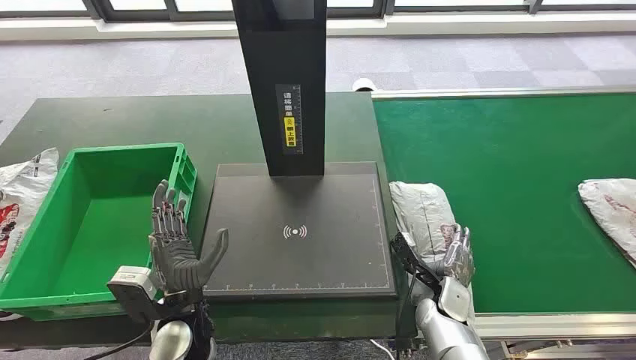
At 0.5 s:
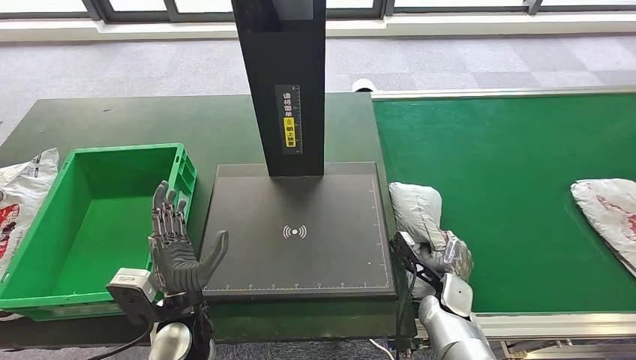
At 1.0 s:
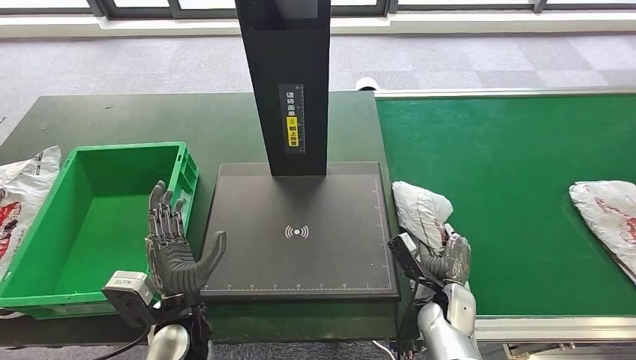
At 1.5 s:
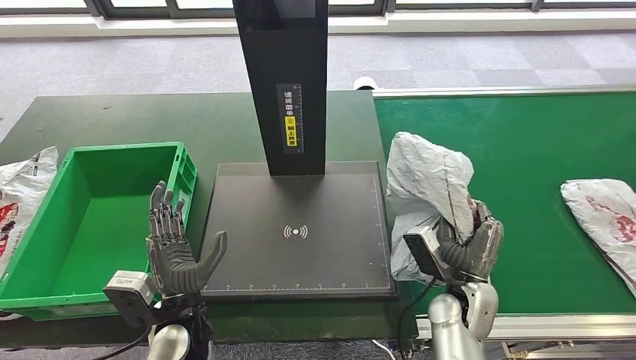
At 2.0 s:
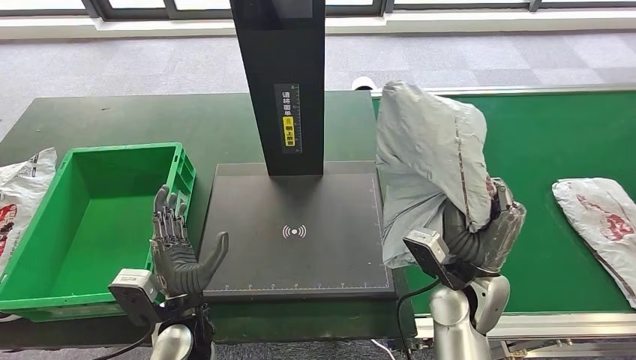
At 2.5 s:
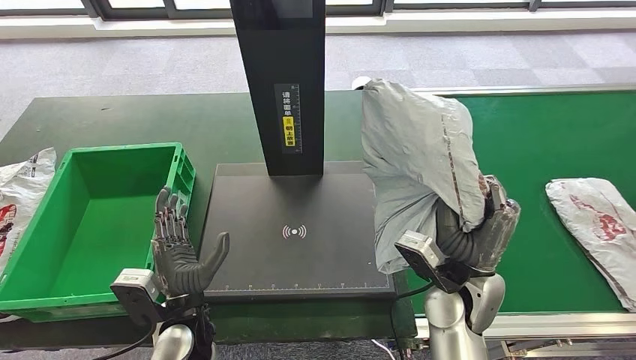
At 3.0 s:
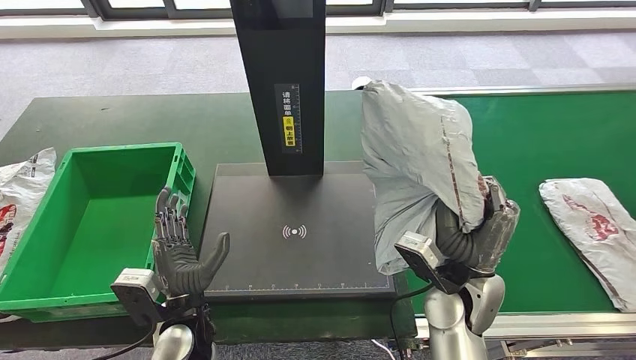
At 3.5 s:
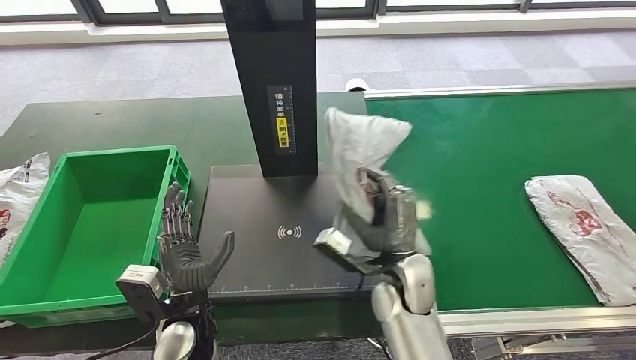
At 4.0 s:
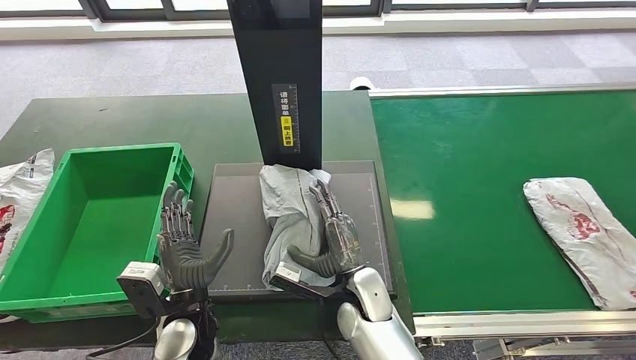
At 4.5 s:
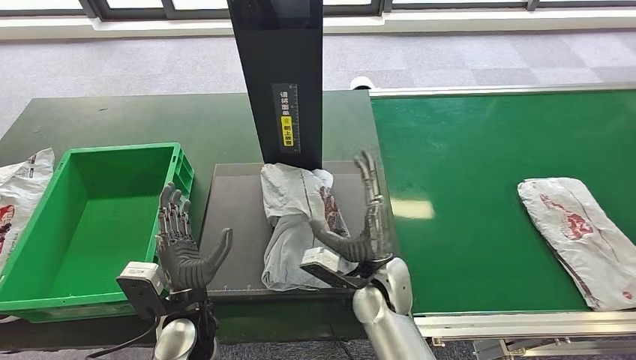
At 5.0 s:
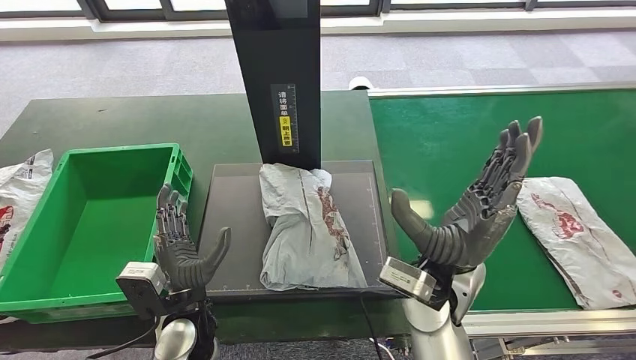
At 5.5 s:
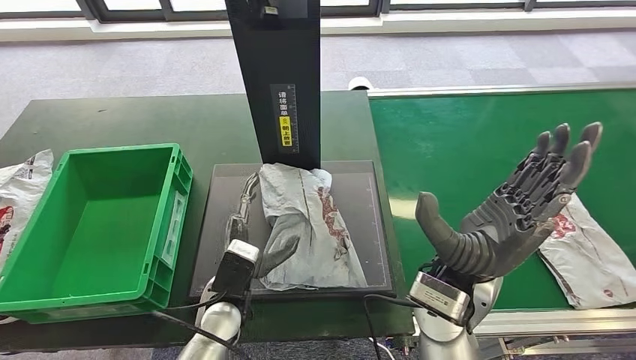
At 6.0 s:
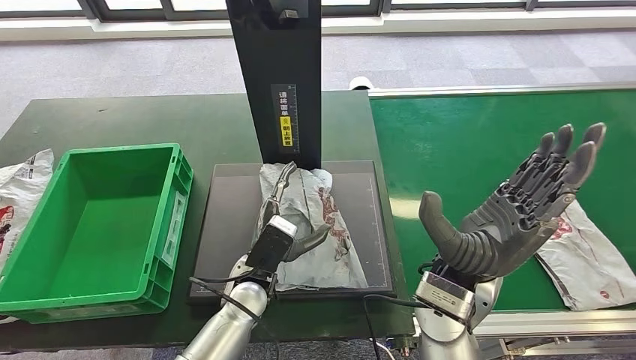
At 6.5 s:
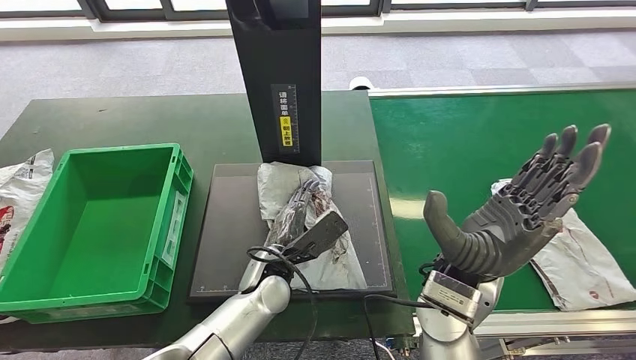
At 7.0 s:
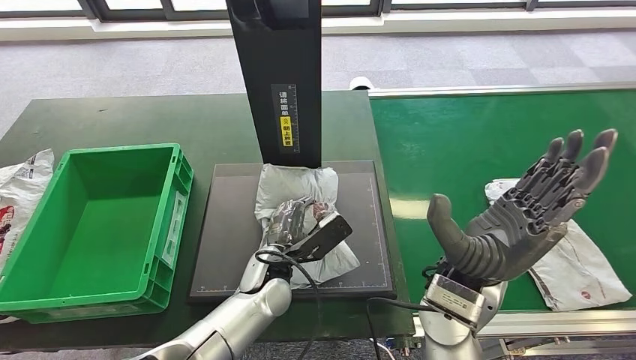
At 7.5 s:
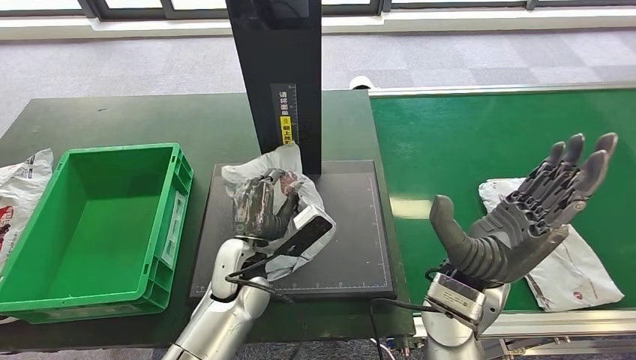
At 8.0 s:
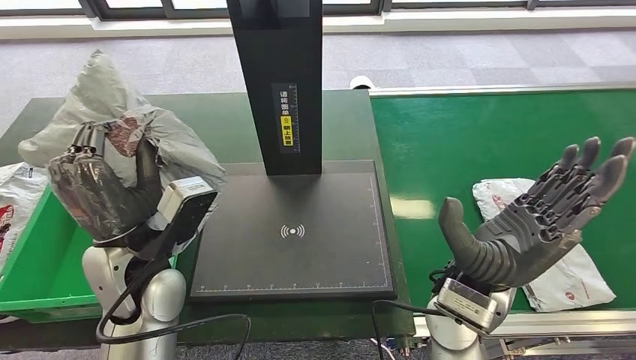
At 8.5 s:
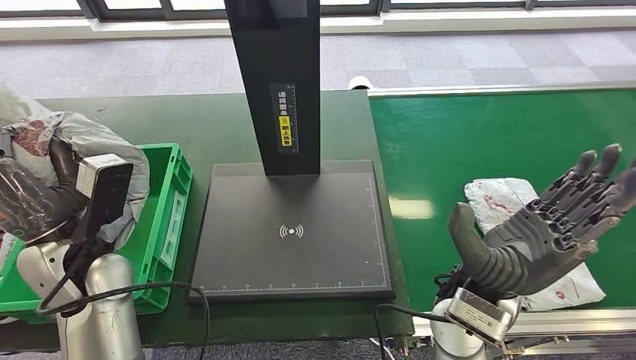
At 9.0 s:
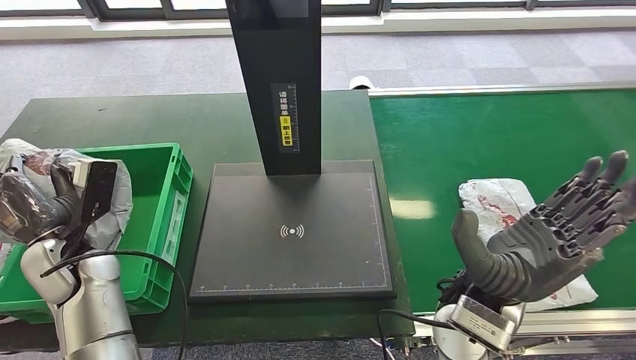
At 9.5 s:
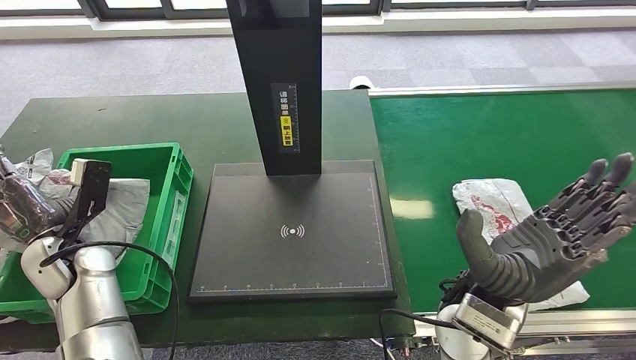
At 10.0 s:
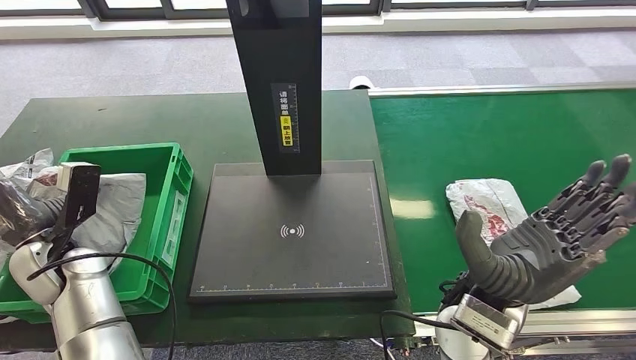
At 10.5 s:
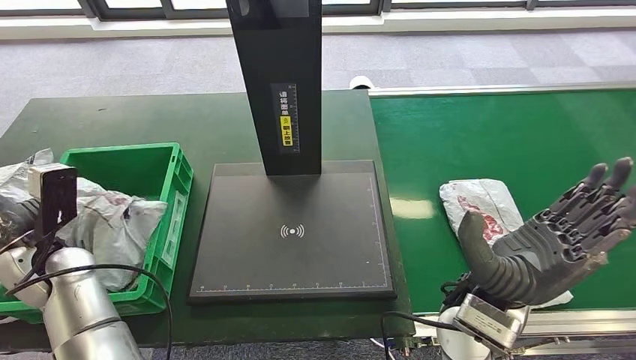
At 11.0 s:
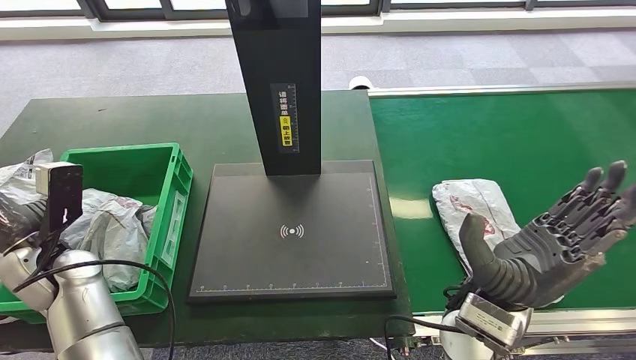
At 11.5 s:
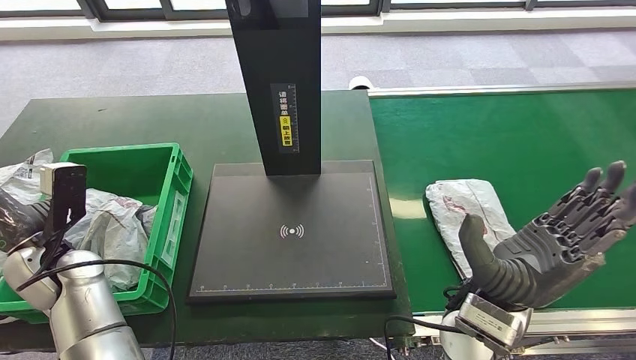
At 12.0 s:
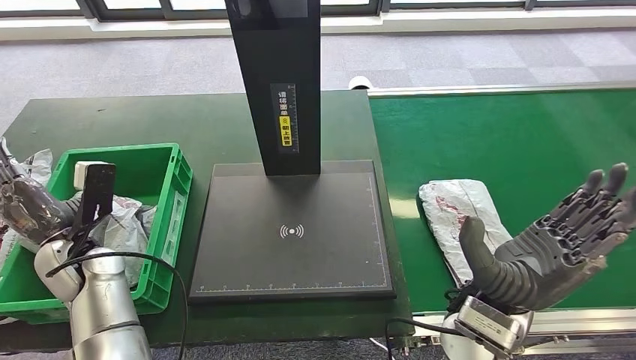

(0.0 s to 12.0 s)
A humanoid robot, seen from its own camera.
Step, 0.0 s - 2.0 s: Take the parcel off the conveyor belt.
Step, 2.5 s - 5.0 s: Place the parcel onto the inbound machine.
Step, 6.0 s - 8.5 s: Pick up the parcel from the inbound machine.
Step, 9.0 s - 11.0 s: Put the parcel inside the courier box.
4.0 s - 6.0 s: The right hand travels upward and to the right by some 20 cm; the left hand travels to the right and forward by approximately 10 cm.
10.0 s - 12.0 s: There are only small adjustments of the hands.

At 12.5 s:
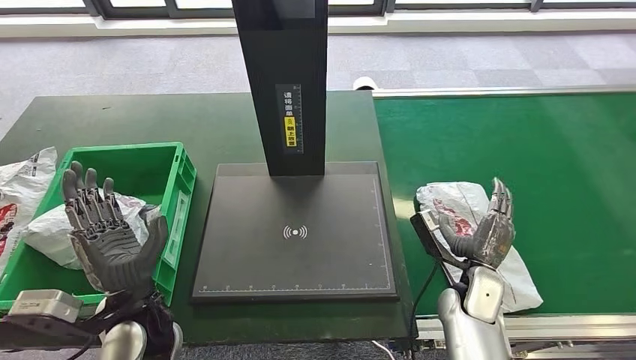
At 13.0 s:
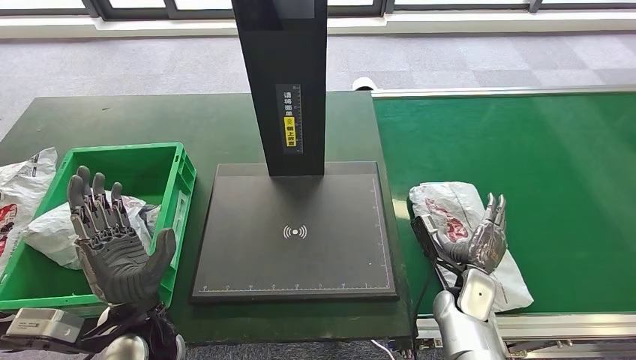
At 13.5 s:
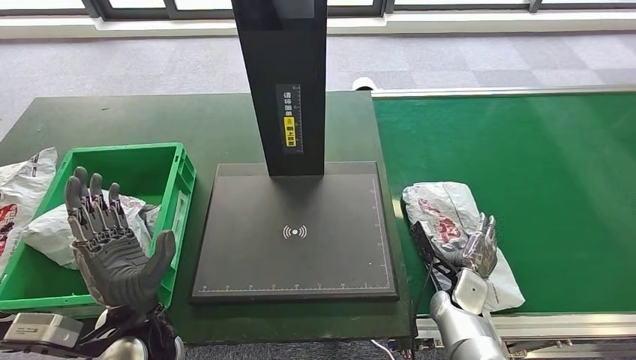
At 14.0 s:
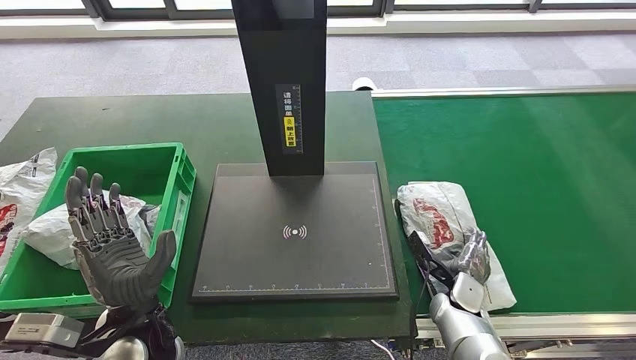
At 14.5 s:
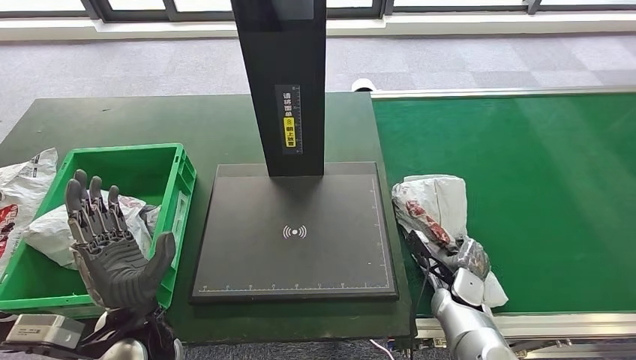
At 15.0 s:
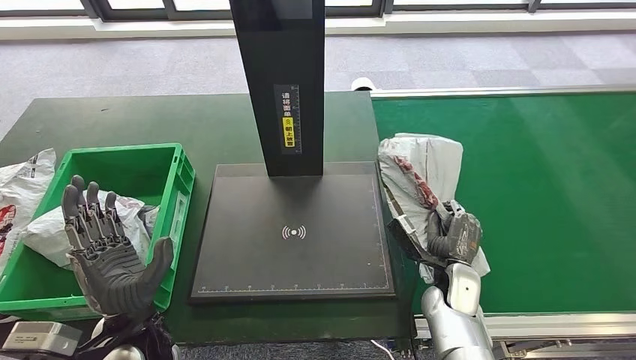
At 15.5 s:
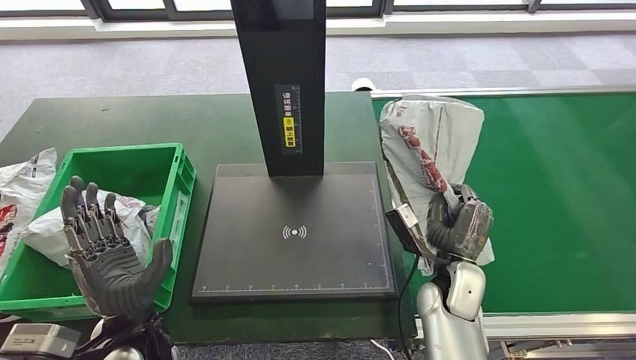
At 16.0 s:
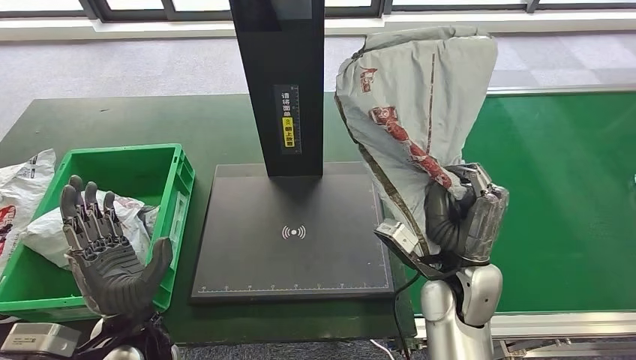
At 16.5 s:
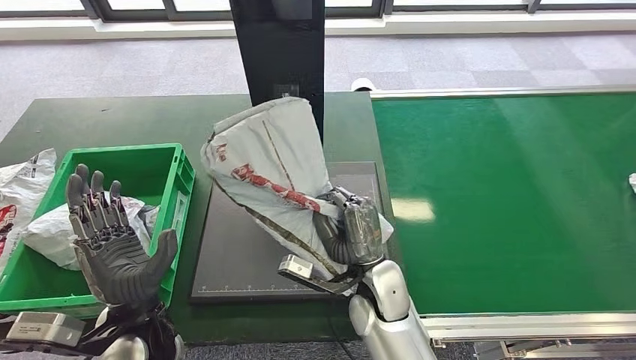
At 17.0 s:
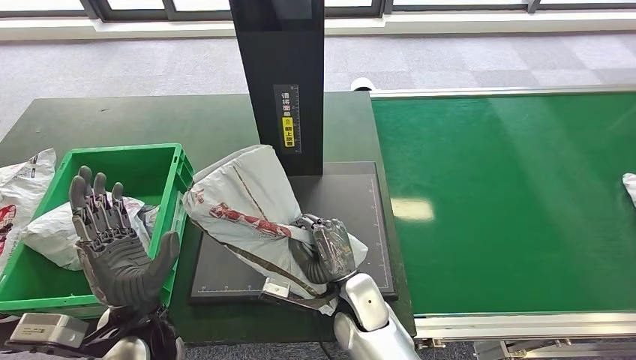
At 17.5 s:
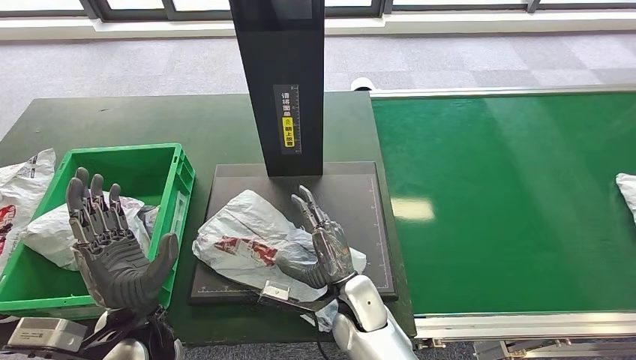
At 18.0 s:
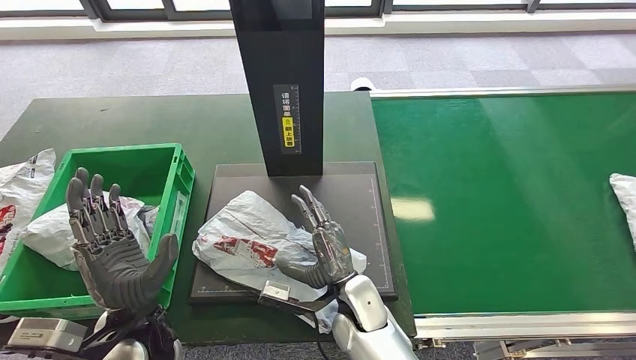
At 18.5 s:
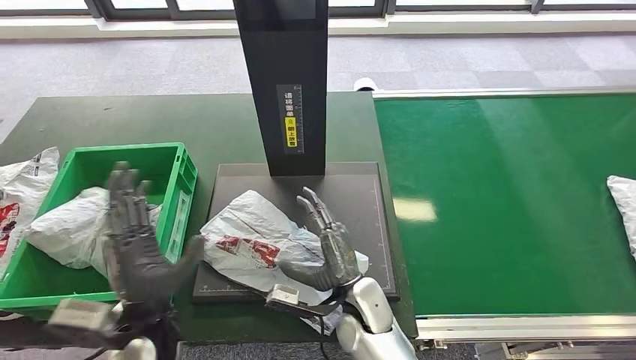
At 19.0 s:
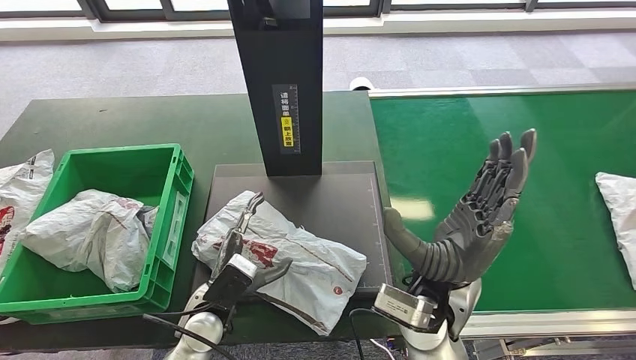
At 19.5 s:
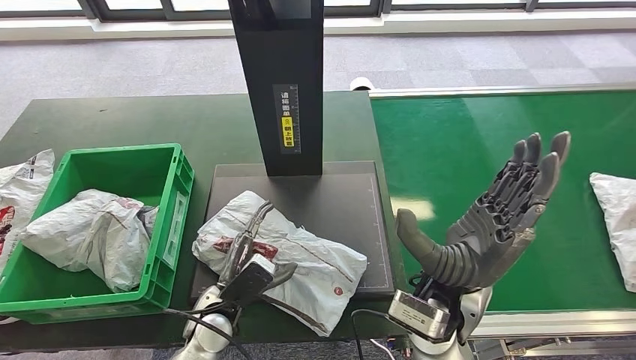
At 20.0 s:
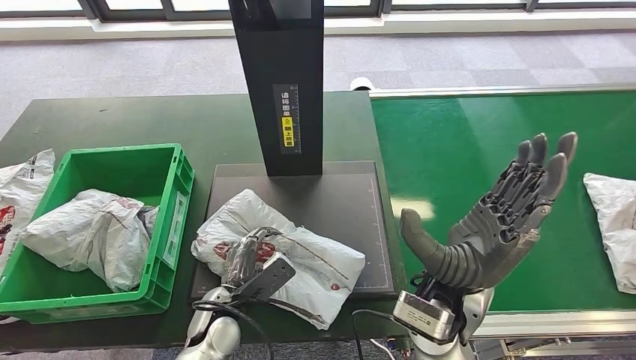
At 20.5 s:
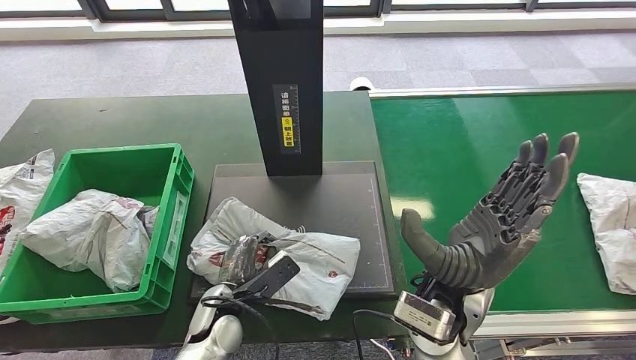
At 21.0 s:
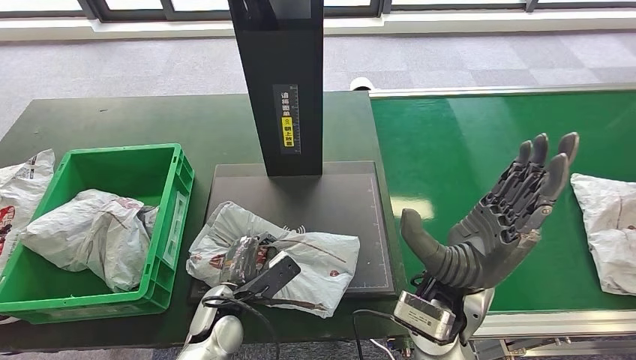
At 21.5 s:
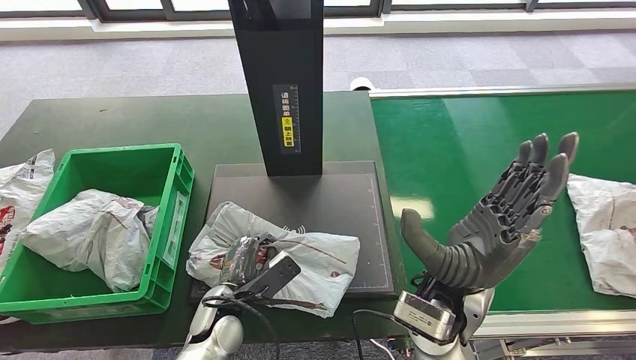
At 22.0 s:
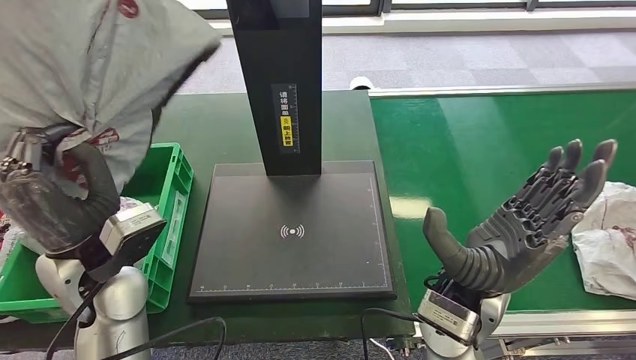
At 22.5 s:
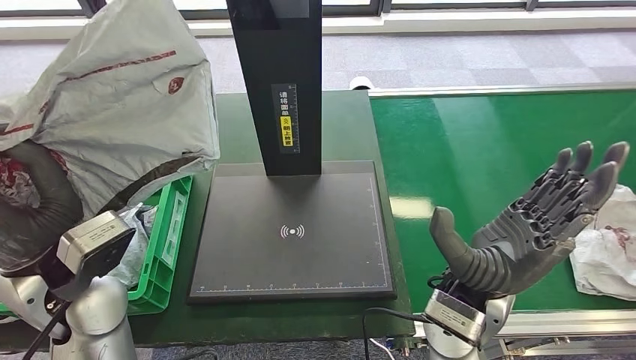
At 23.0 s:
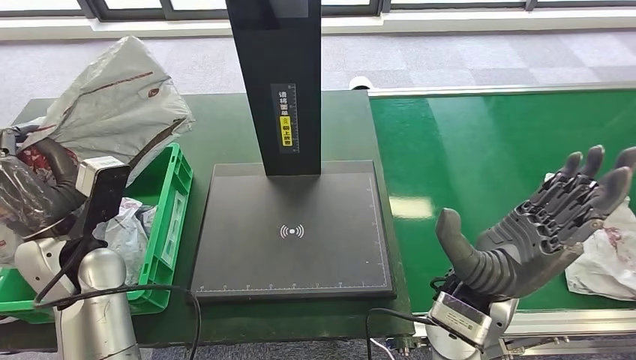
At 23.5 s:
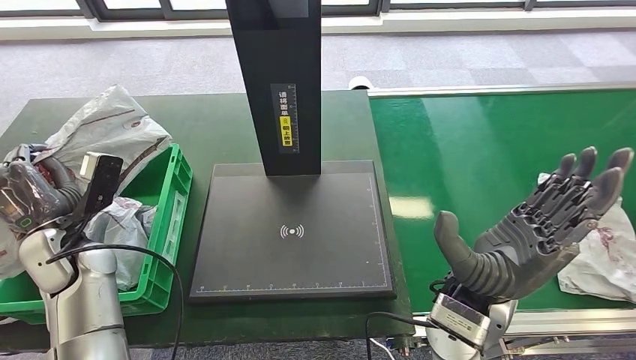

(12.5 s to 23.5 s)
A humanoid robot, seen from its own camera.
Step, 12.5 s - 14.5 s: Pick up the parcel from the conveyor belt.
Step, 15.0 s - 18.0 s: Place the parcel onto the inbound machine.
Step, 19.0 s - 22.0 s: Pick up the parcel from the inbound machine.
20.0 s - 21.5 s: The hands make only small movements.
